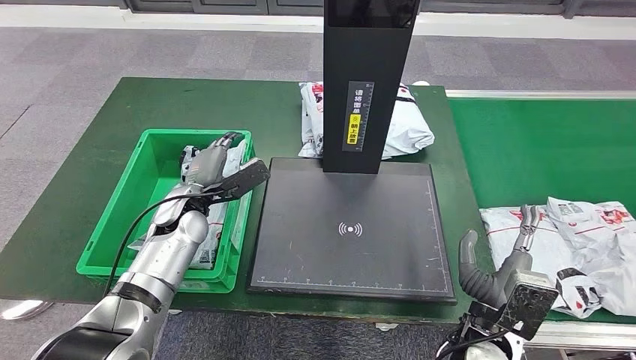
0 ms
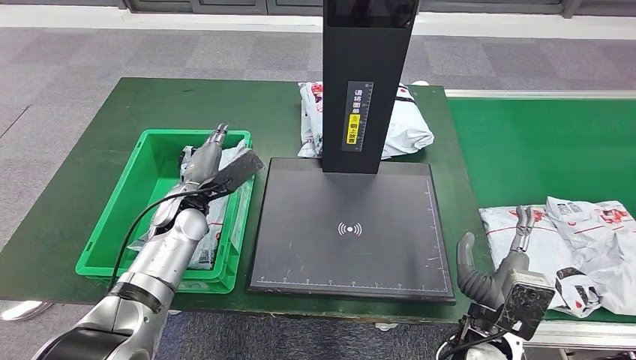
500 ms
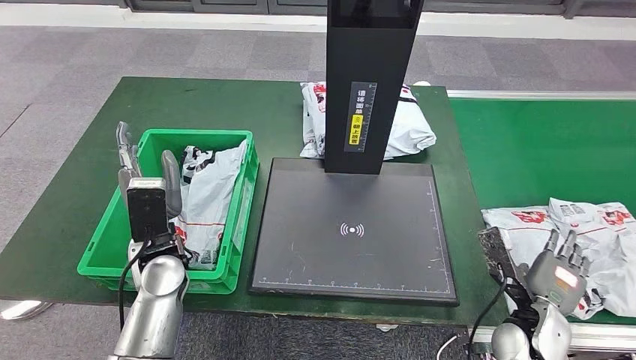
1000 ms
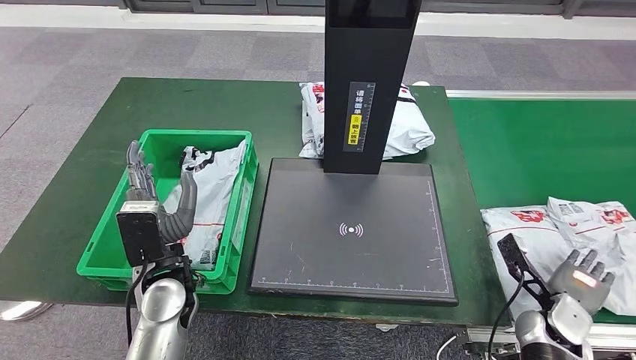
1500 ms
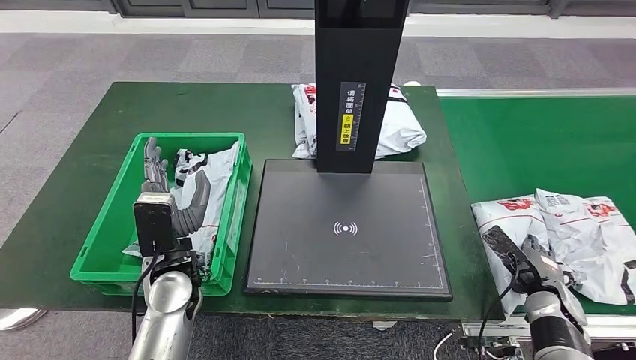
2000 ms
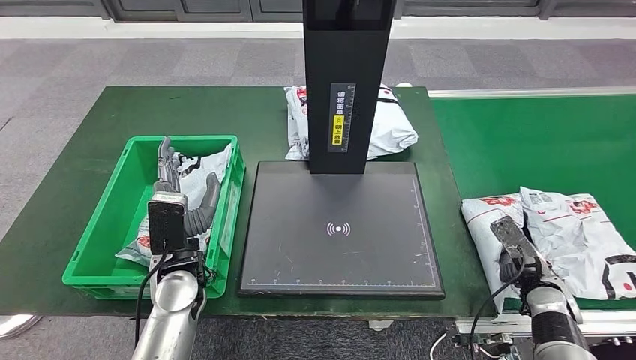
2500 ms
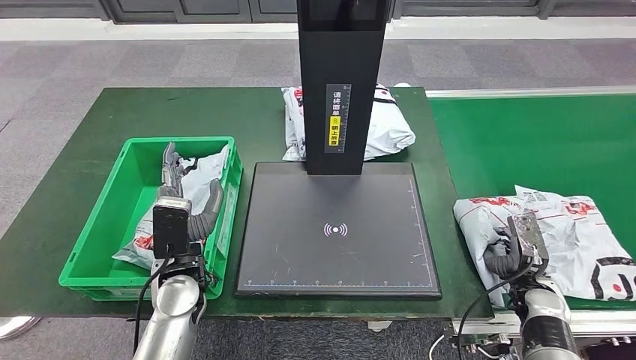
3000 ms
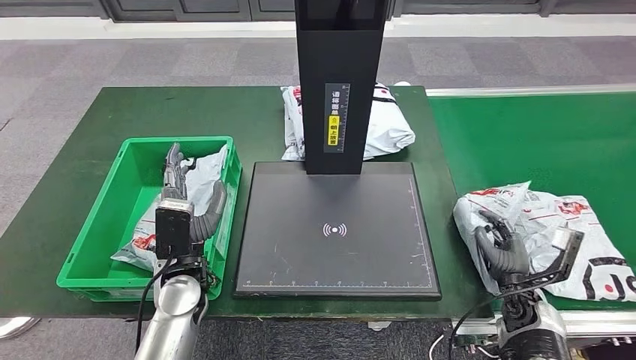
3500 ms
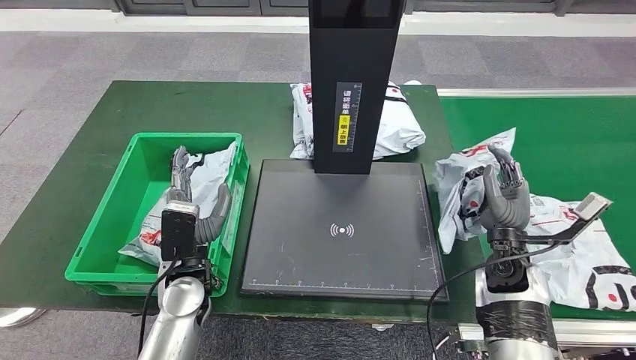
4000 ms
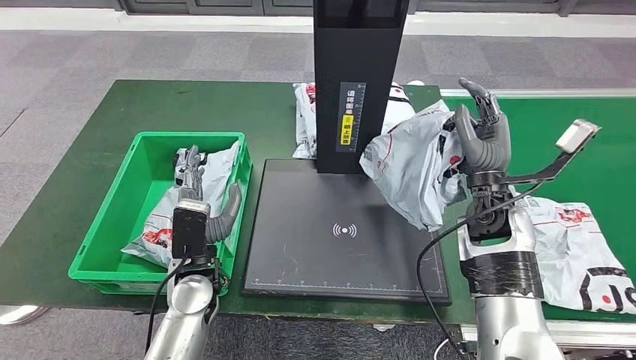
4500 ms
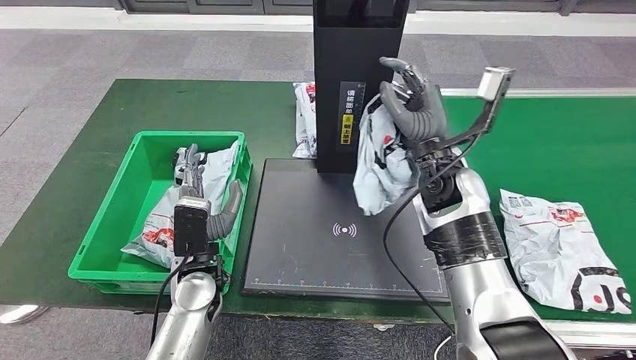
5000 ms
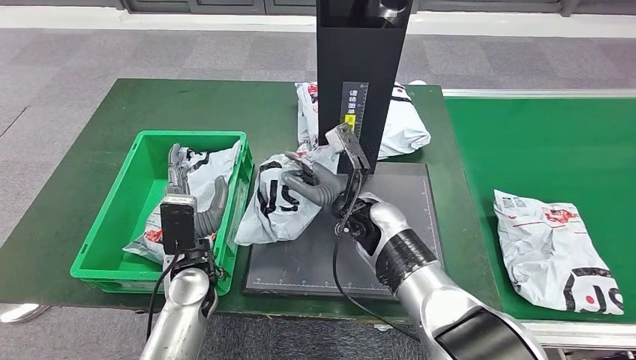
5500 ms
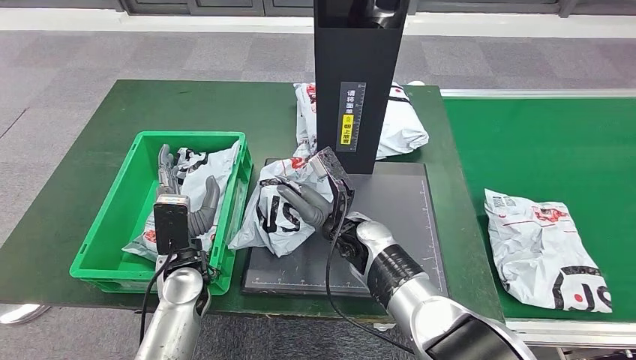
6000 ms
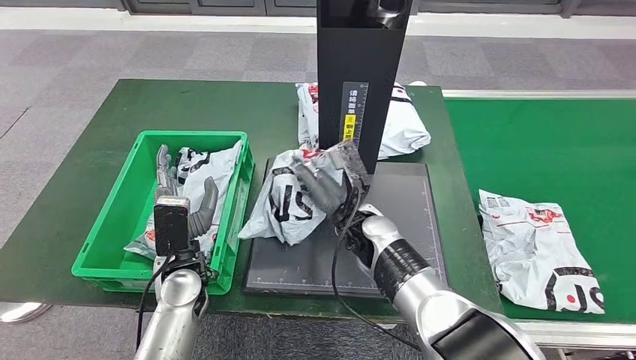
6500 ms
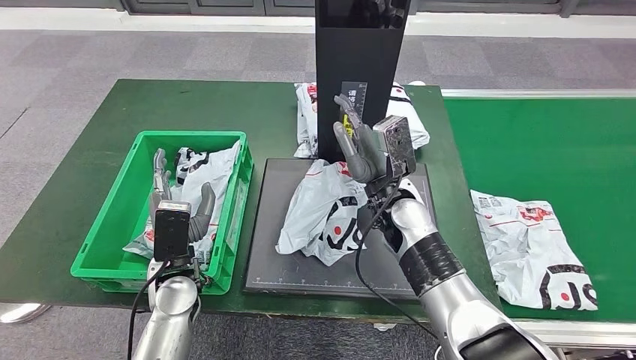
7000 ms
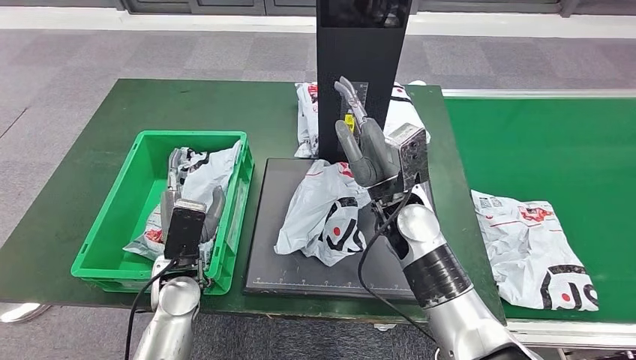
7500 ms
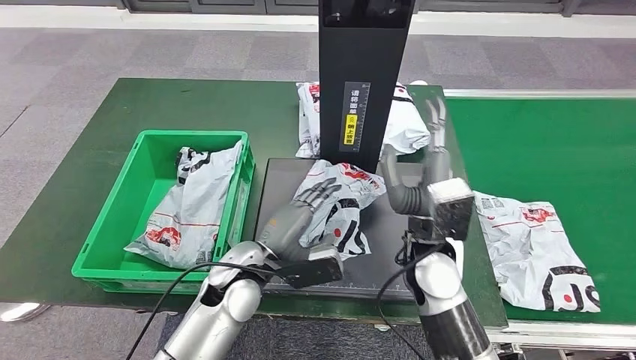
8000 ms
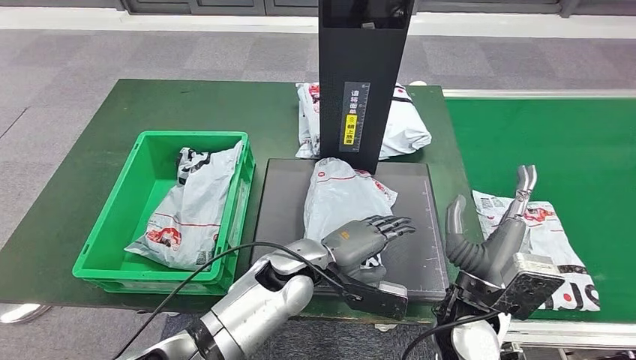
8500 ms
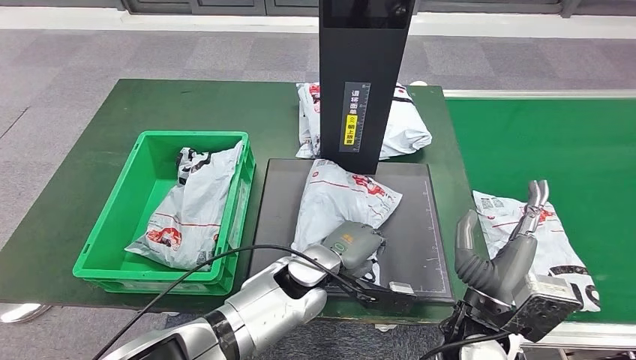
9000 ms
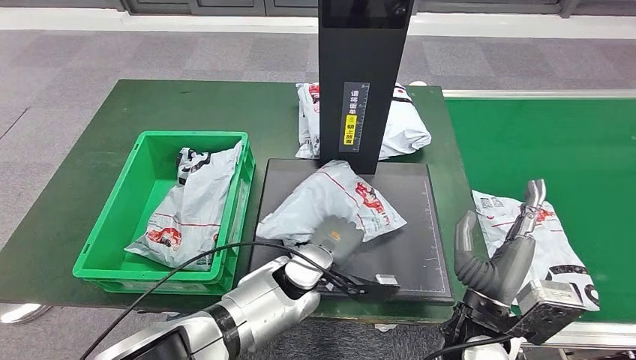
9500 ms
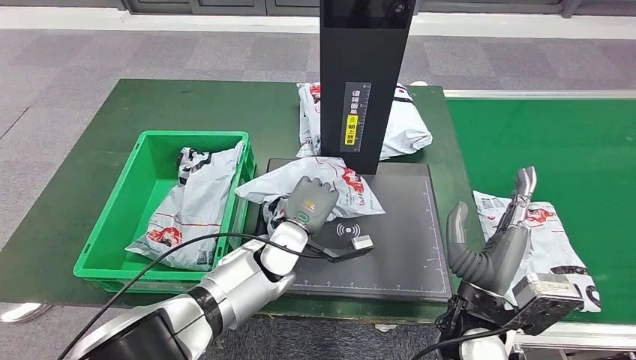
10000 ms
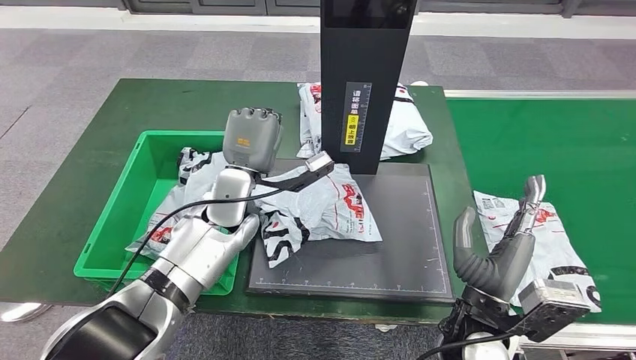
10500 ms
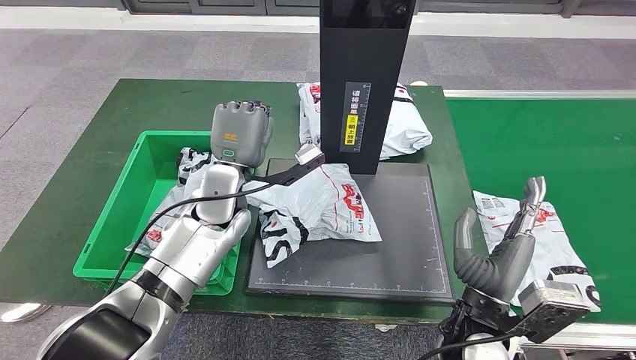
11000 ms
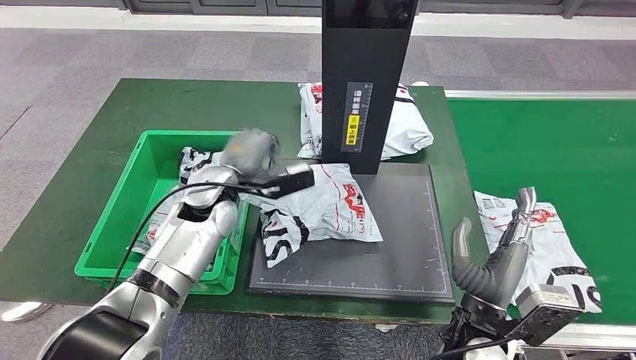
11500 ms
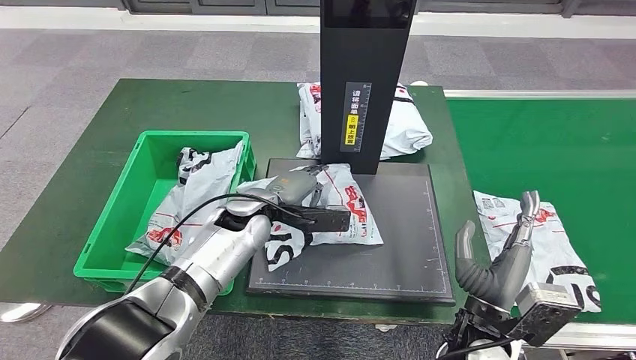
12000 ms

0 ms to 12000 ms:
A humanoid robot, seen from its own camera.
Step, 0 ms to 1500 ms: Put the parcel inside the courier box.
Step, 2000 ms to 4000 ms: Pick up the parcel from the conveyor belt.
Step, 4500 ms to 7000 ms: Place the parcel onto the inbound machine.
10000 ms to 12000 ms: The left hand heads forward, to the left and upward, covering approximately 10 cm.

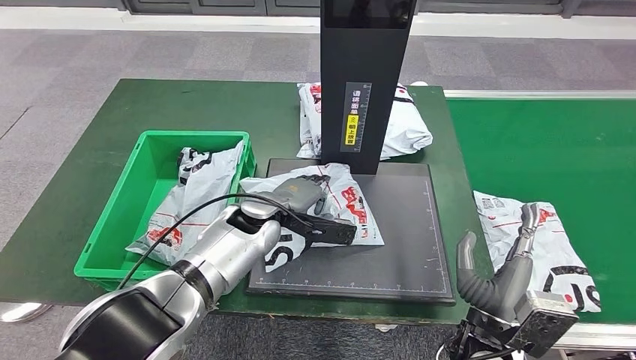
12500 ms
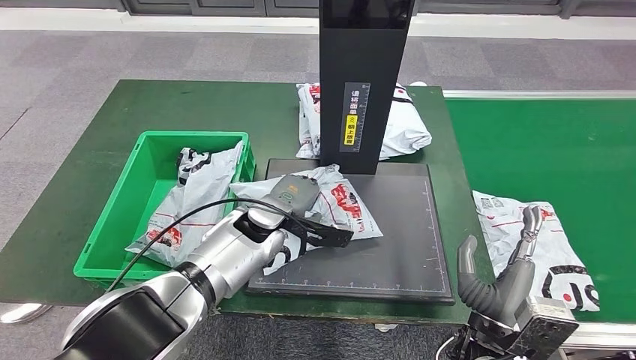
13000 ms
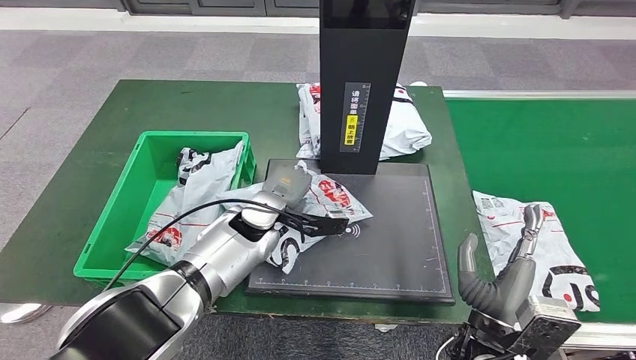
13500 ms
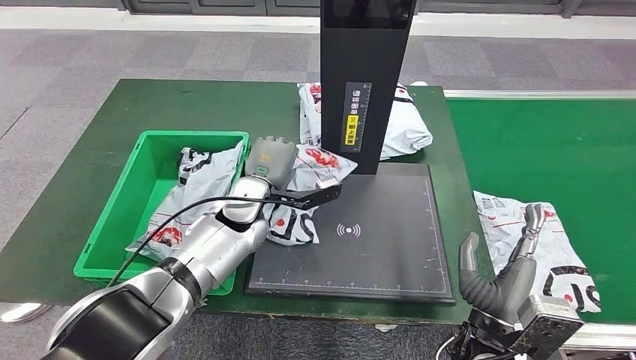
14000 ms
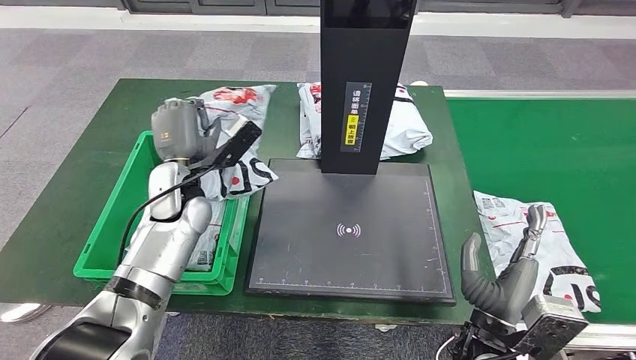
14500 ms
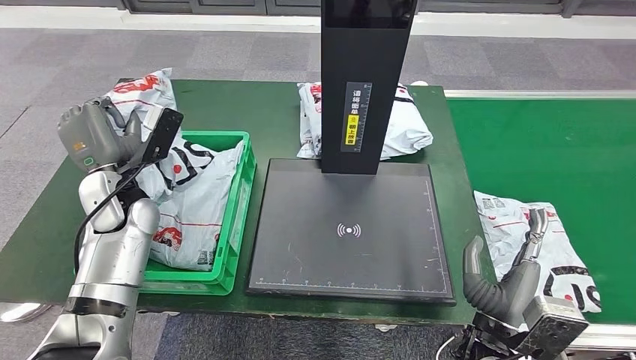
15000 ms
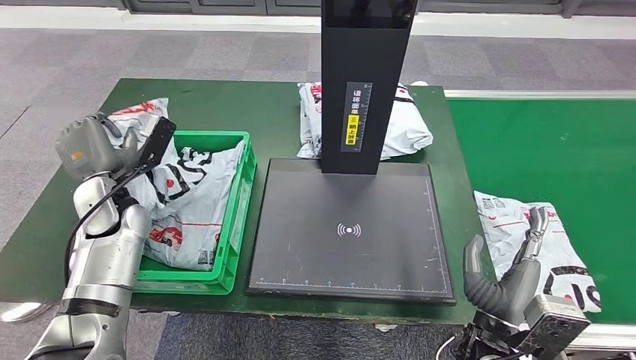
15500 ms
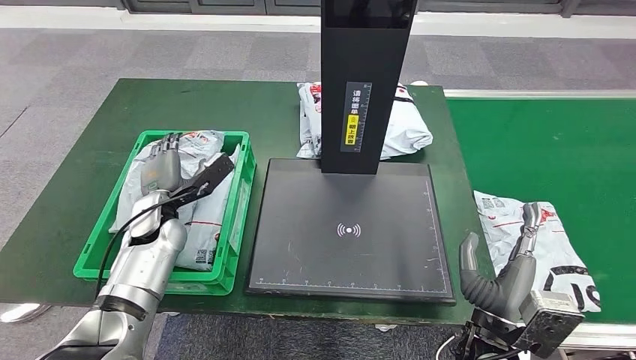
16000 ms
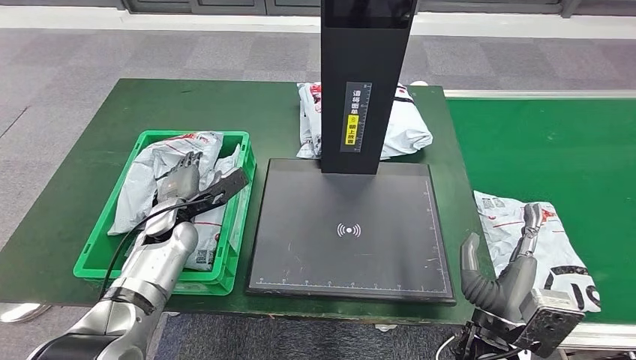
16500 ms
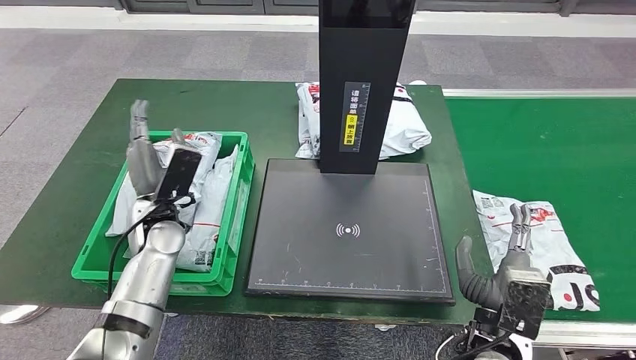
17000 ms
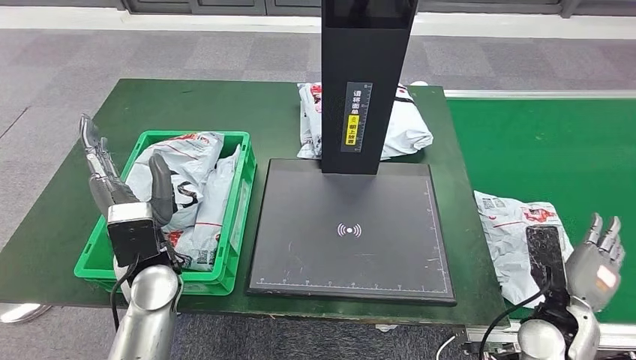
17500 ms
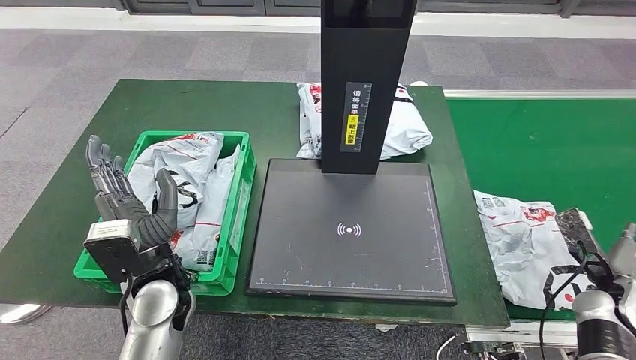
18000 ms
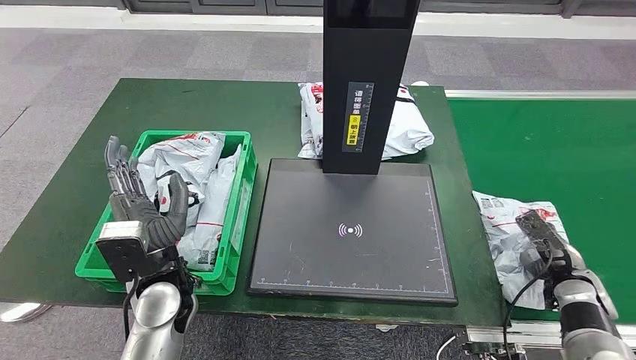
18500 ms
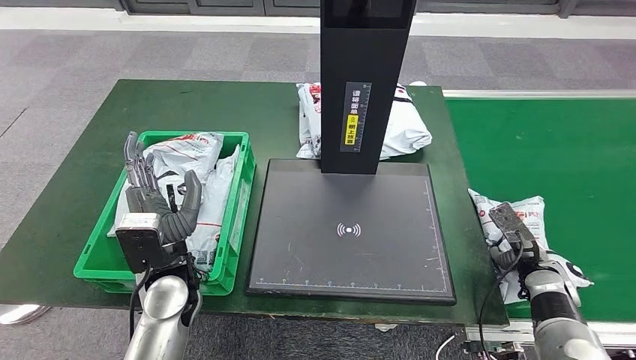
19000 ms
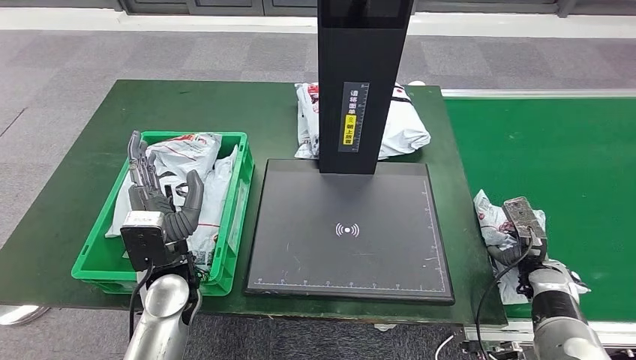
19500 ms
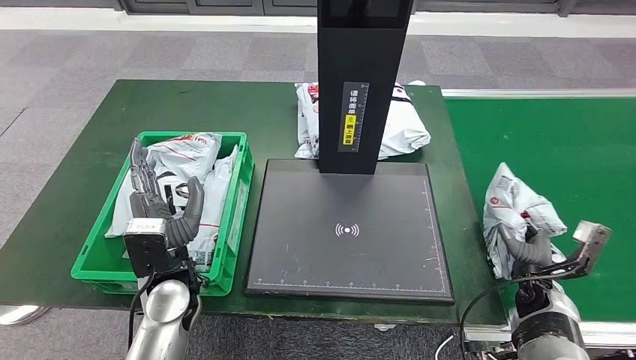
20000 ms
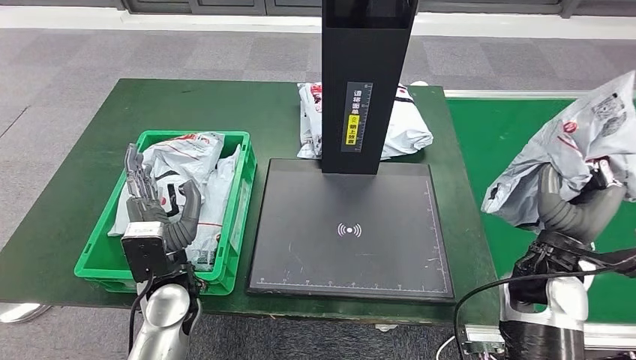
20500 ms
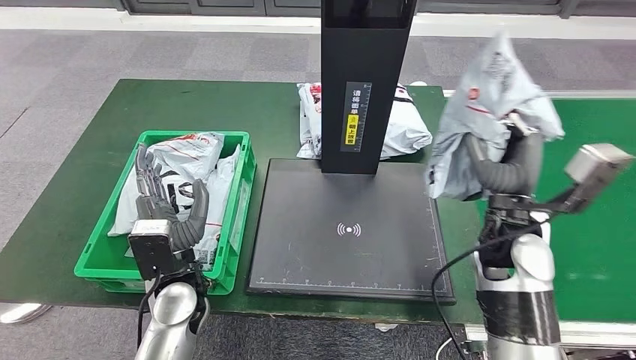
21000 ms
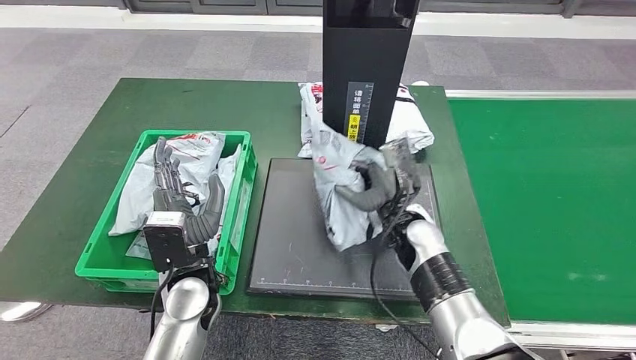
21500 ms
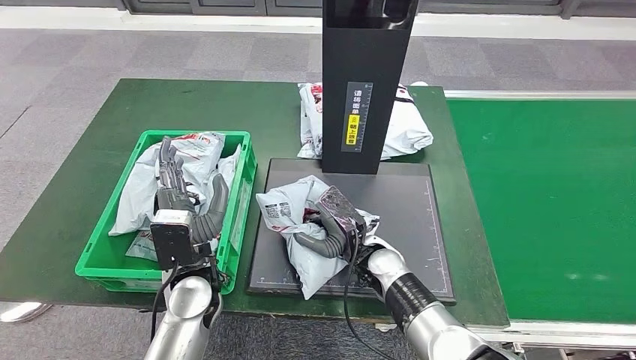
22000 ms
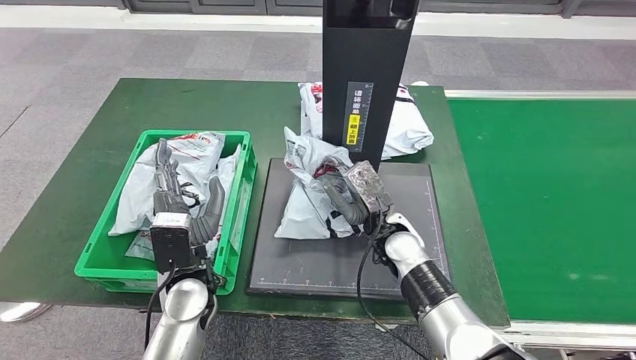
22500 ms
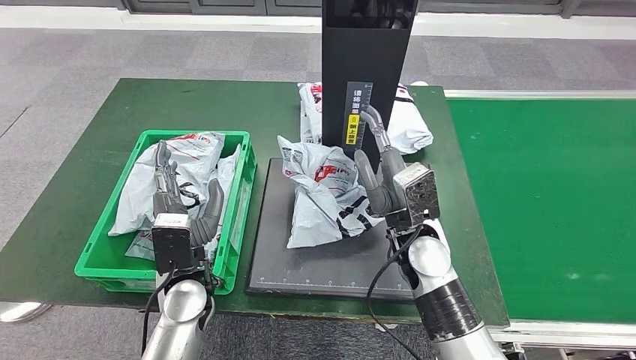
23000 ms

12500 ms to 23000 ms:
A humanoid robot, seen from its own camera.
Step, 12500 ms to 14000 ms: Pick up the parcel from the inbound machine.
Step, 14500 ms to 17000 ms: Place the parcel into the delivery box.
Step, 17500 ms to 20500 ms: Pick up the parcel from the conveyor belt.
12500 ms to 14500 ms: The left hand goes roughly 10 cm to the left and upward.
14500 ms to 16500 ms: The left hand heads downward, covering about 10 cm.
16500 ms to 19000 ms: The right hand travels to the right, forward and downward by some 25 cm. The left hand shifts some 15 cm backward and to the right.
19000 ms to 21000 ms: The right hand heads upward and to the left, covering about 25 cm.
